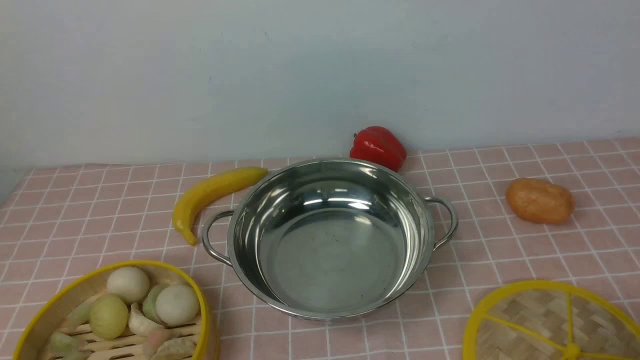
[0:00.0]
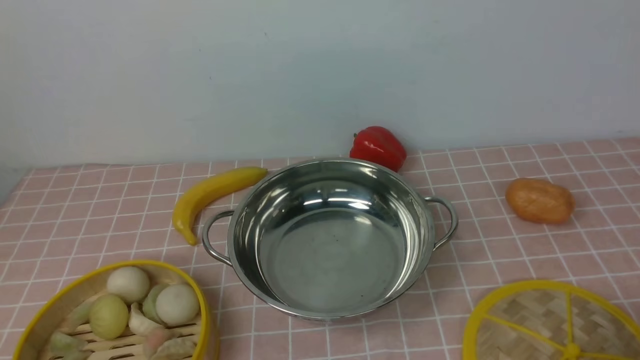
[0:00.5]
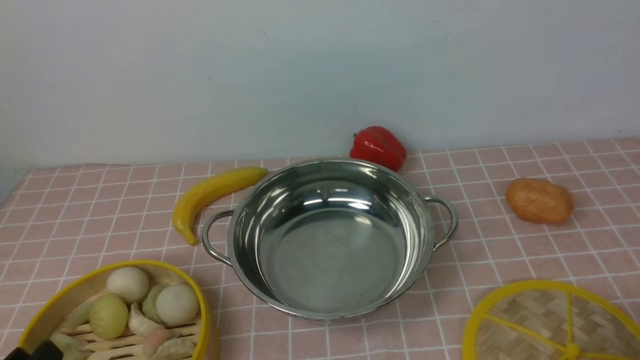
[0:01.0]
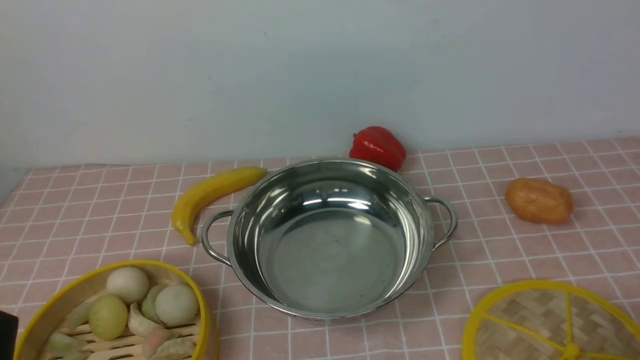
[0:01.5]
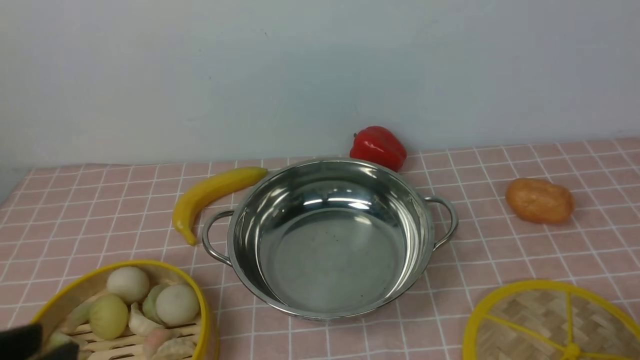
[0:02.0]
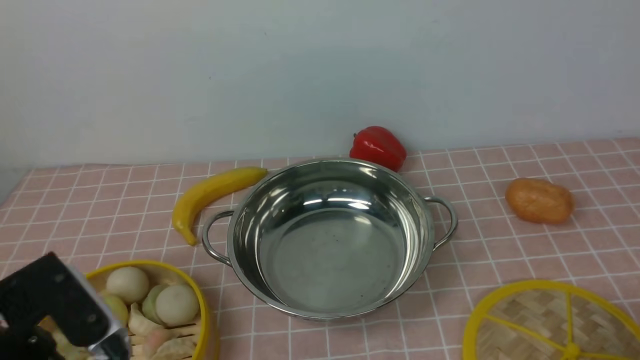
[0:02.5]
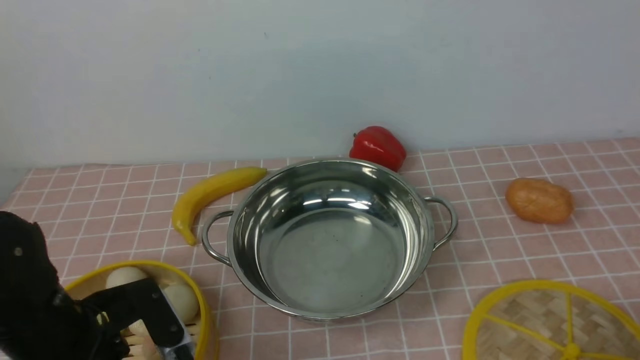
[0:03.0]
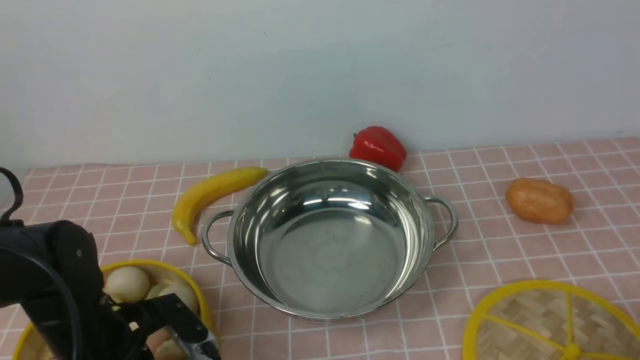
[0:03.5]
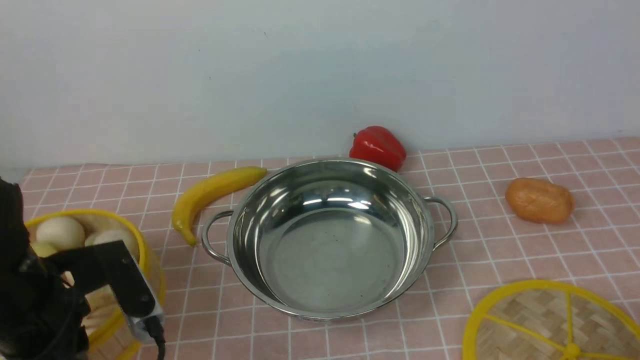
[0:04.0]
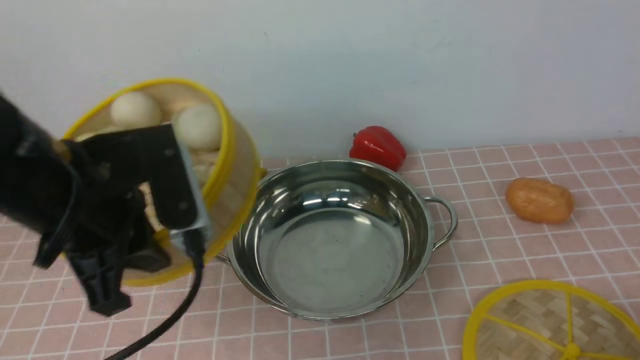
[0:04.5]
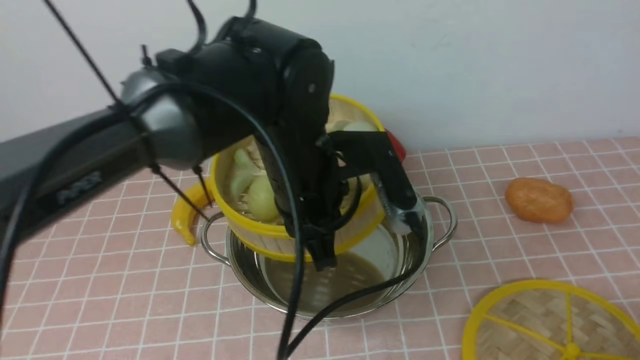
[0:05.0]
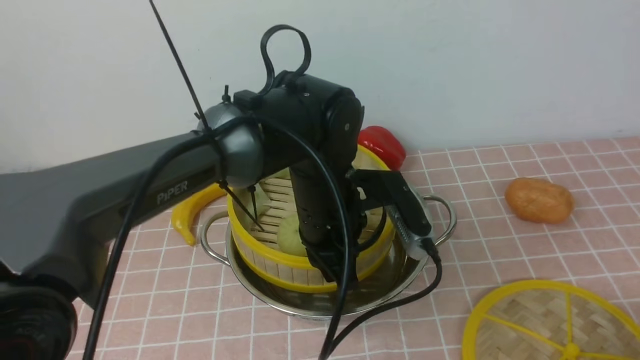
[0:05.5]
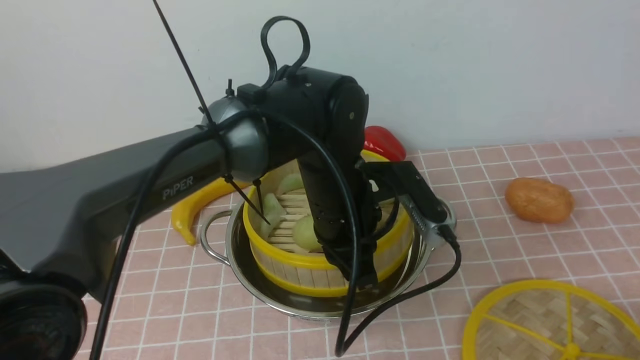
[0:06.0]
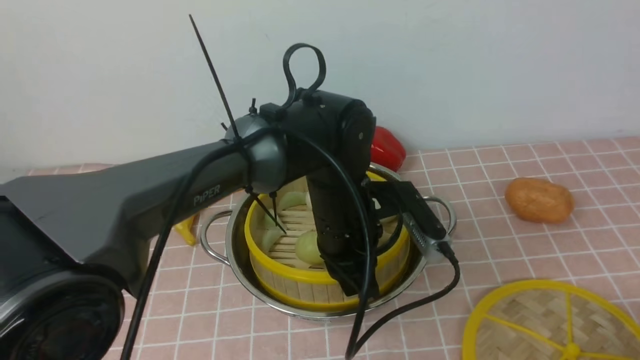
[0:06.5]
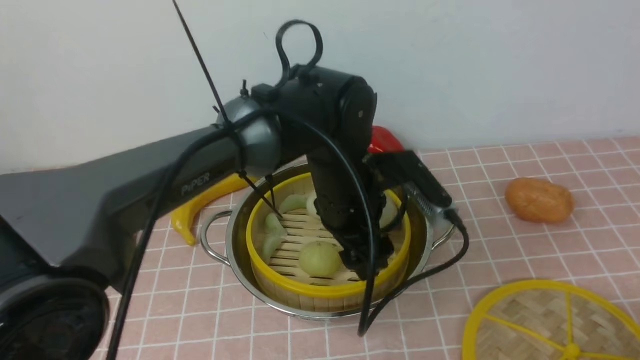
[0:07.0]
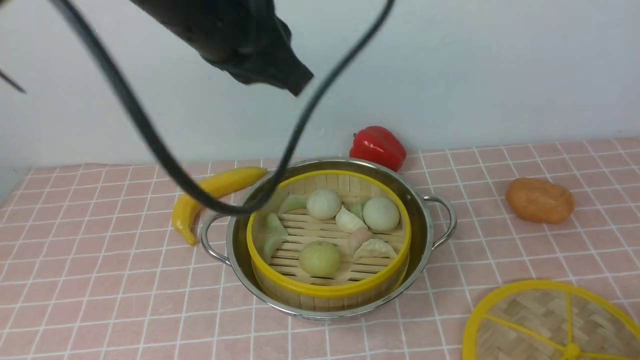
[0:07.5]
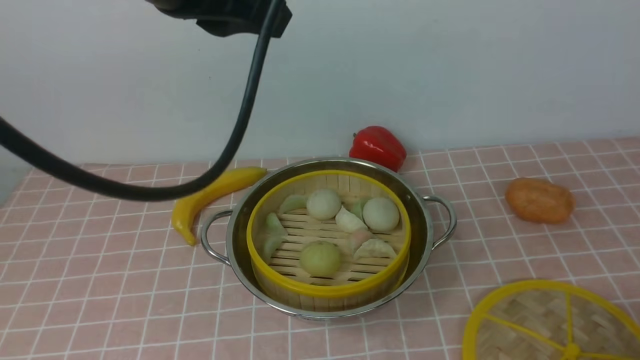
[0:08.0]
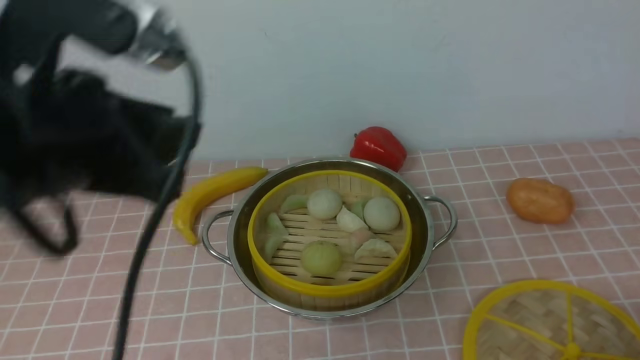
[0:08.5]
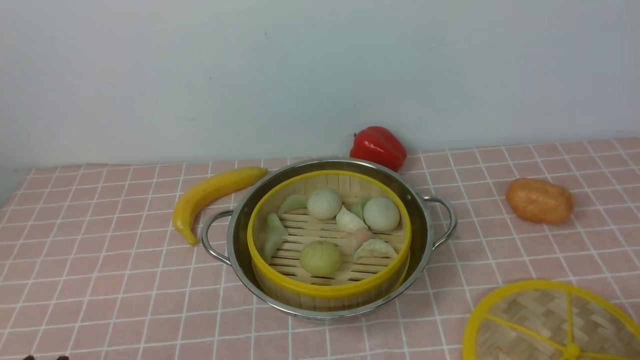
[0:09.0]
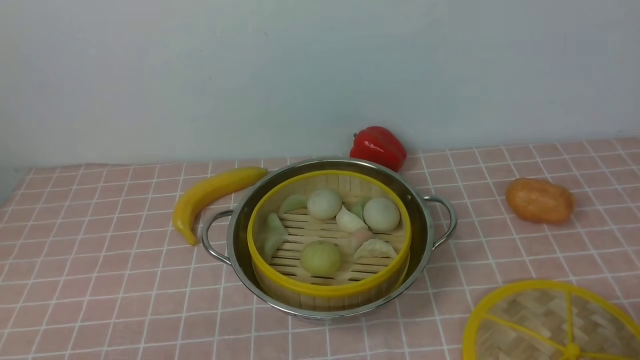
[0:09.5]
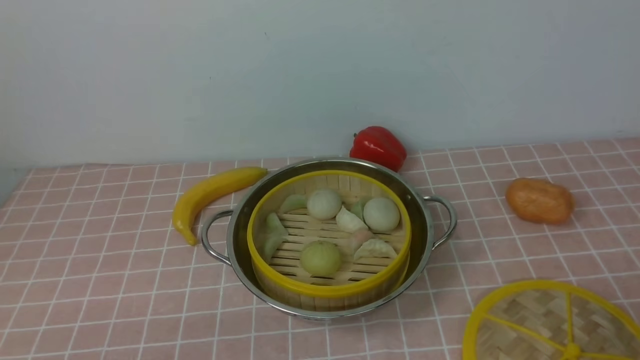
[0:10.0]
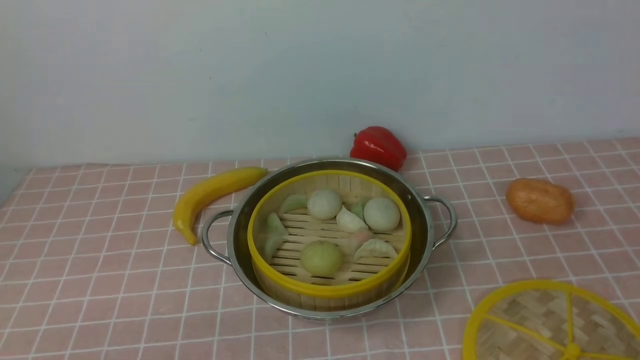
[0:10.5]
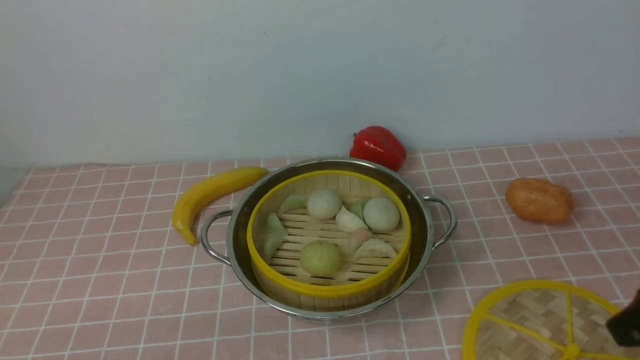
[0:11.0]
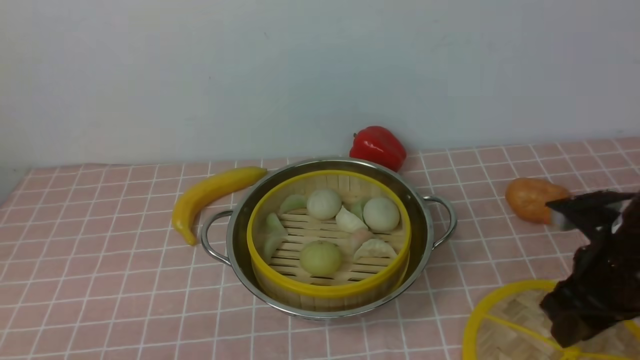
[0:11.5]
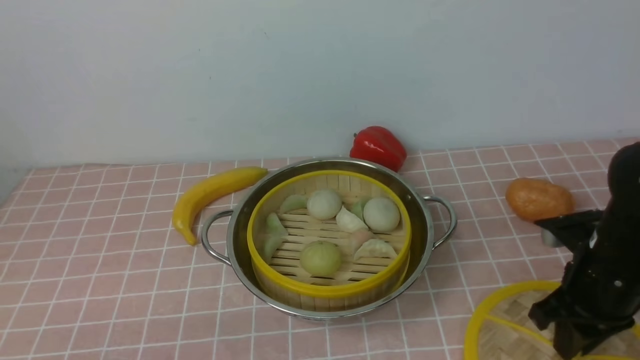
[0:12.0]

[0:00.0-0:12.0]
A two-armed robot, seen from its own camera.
Task of the whole recording: place the steamer in the pot on the pink tablecloth, and put the lid on the steamer.
Step, 0:00.0 to 0:03.5: use the left arm to lift the steamer closest to it.
Step, 0:04.0 to 0:06.5: use the left arm to put the steamer into the iron steamer pot in the middle.
0:00.0 to 0:02.0: The left gripper shifts some 15 cm upward.
0:02.0 to 0:04.0: The left gripper goes some 15 cm forward and downward, and closes.
0:04.0 to 0:06.0: The left gripper travels to the right and forward by roughly 25 cm.
0:06.0 to 0:08.0: The left gripper shifts approximately 25 cm upward and to the left, and opens, then closes again.
0:08.0 to 0:10.0: The right gripper shifts by approximately 5 cm. Meanwhile the left gripper heads downward, backward and to the left, covering approximately 40 cm.
0:10.0 to 0:12.0: The right gripper shifts roughly 20 cm forward.

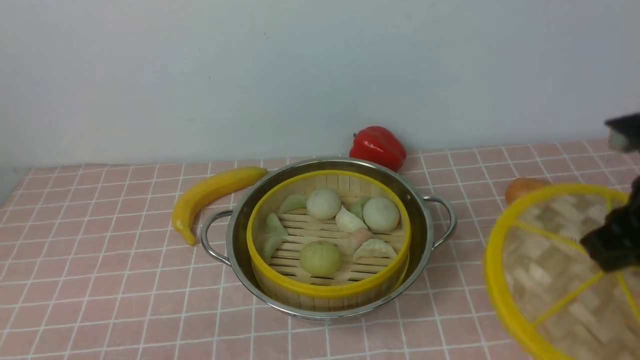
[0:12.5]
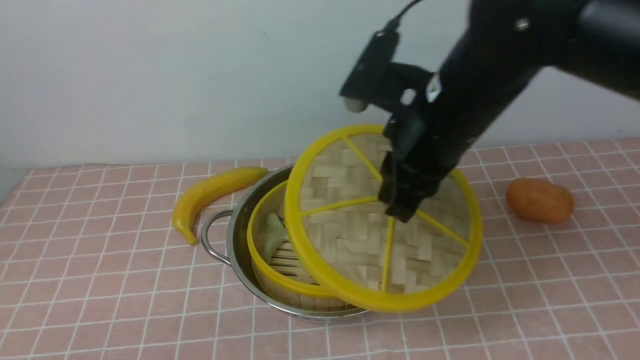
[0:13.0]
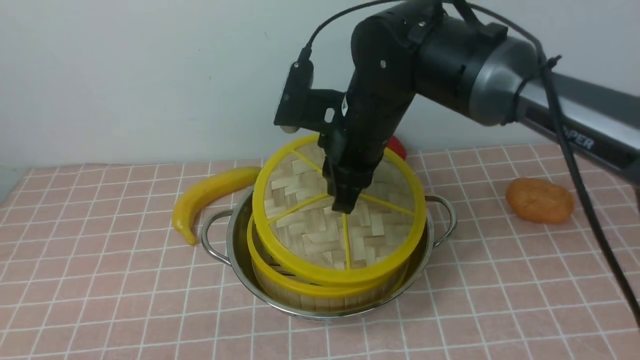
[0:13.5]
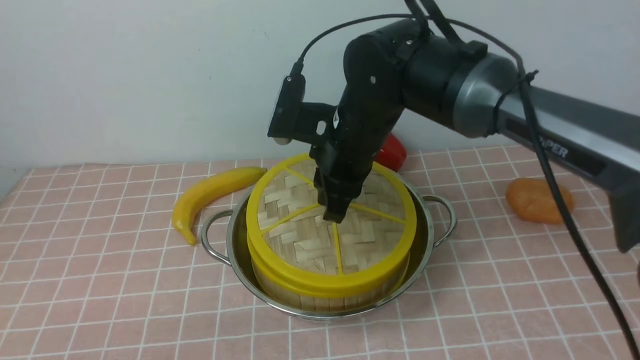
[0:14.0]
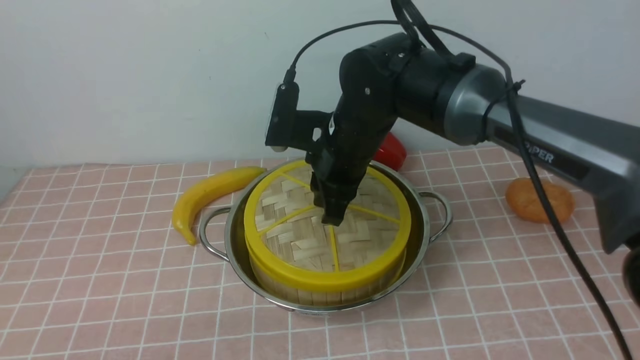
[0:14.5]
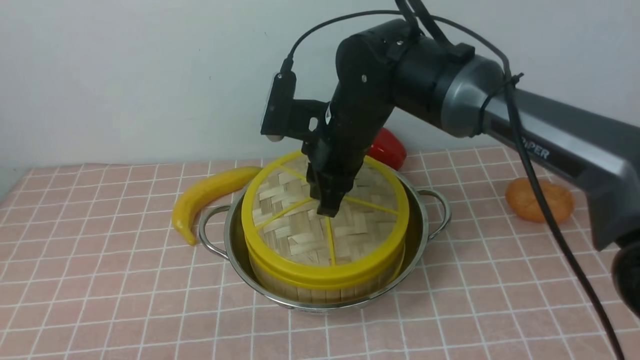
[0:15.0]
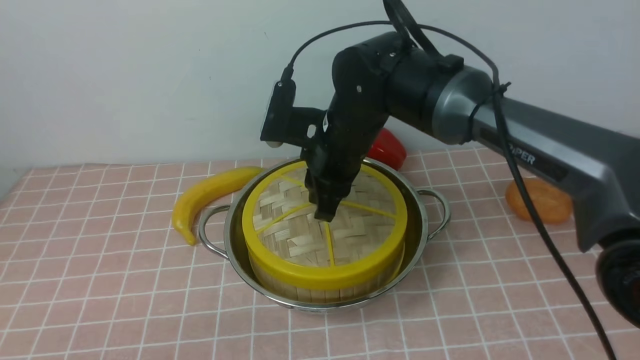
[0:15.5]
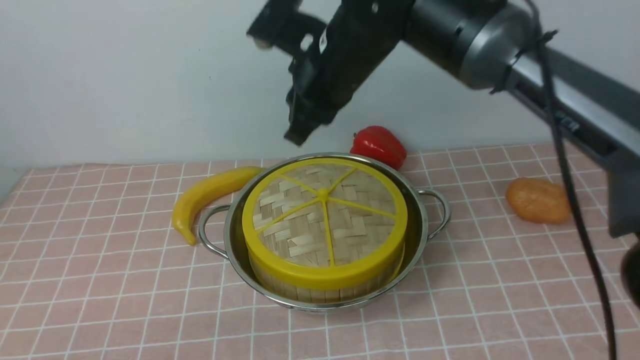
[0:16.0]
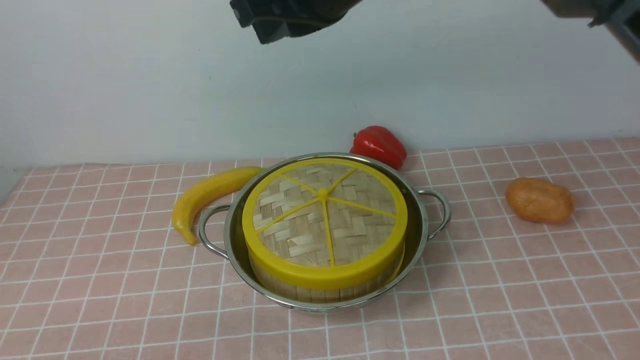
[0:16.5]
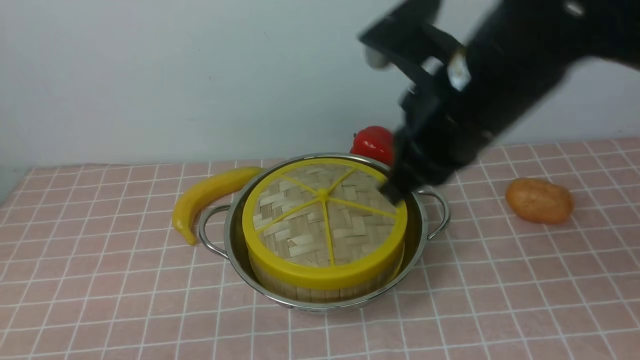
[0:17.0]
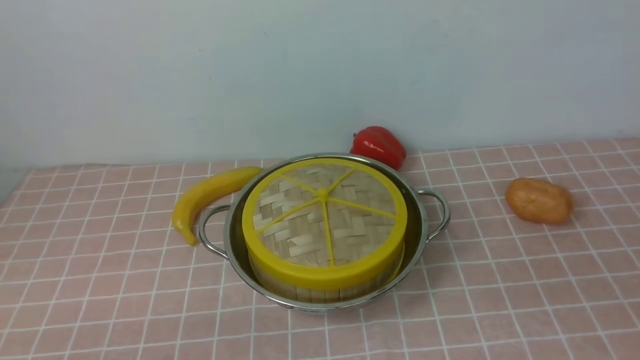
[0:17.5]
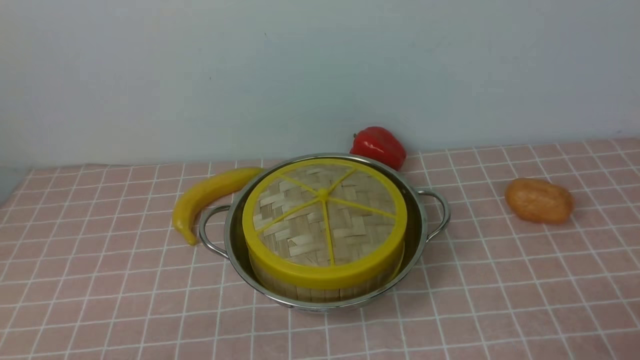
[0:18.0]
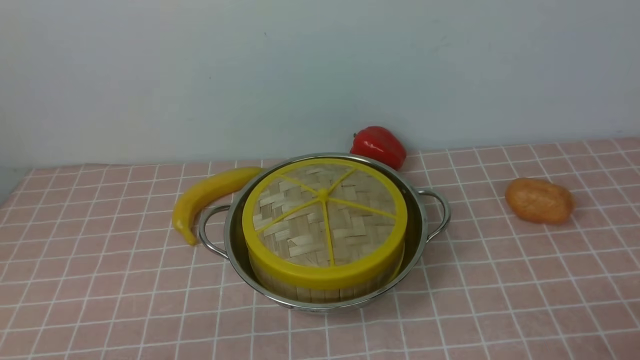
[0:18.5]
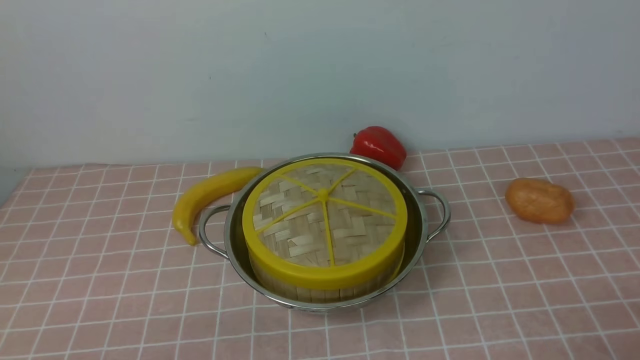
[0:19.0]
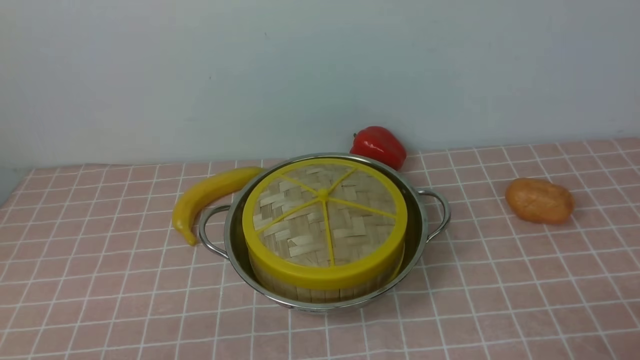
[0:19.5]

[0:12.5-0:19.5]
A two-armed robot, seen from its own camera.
Task of the whole recording: place the steamer in the pot on the pink tablecloth, and put the lid on the steamer.
Step, 0:12.5 to 0:15.5: use the right arm to place the steamer lid on the steamer.
0:12.5 to 0:14.5: The right gripper heads to the left and forward, covering about 25 cm.
0:14.5 to 0:16.0: The right gripper moves upward, approximately 10 cm.
0:16.0 to 0:17.5: The right gripper moves to the right and backward, about 40 cm.

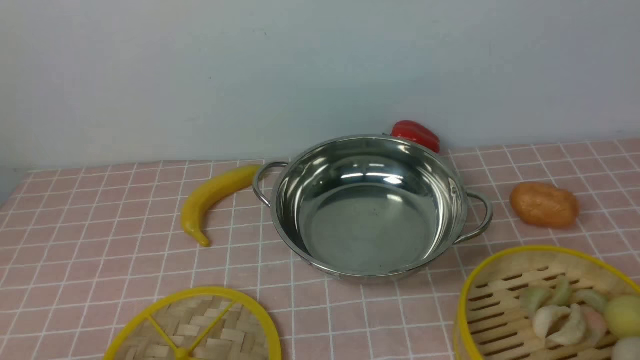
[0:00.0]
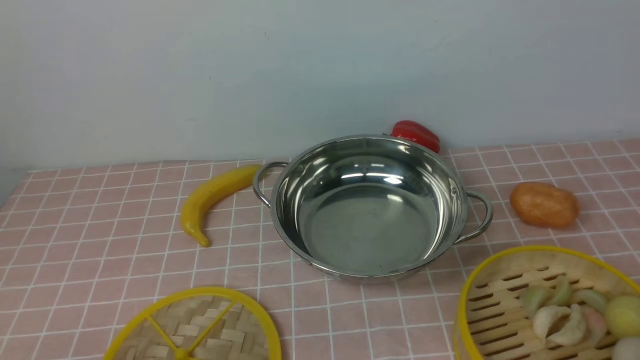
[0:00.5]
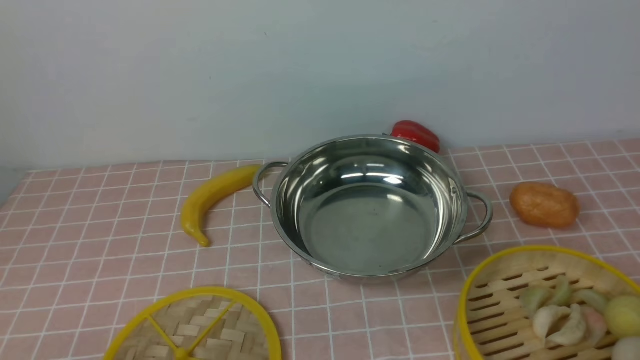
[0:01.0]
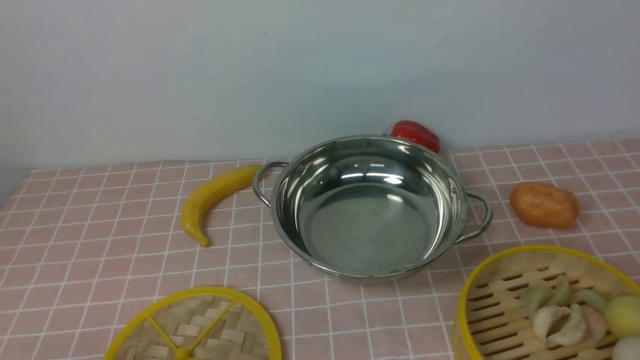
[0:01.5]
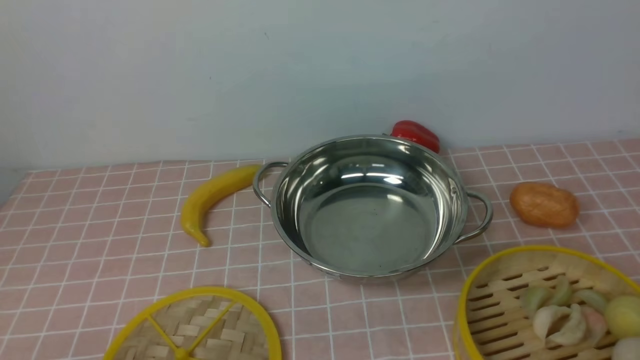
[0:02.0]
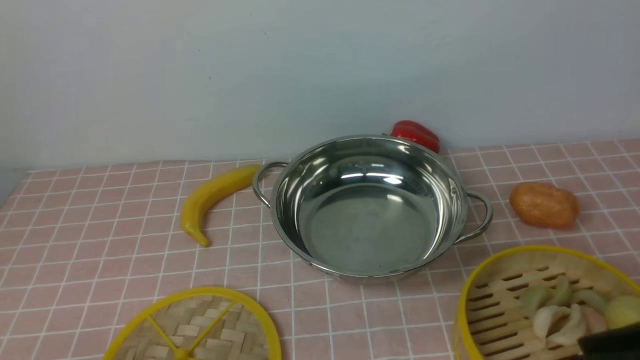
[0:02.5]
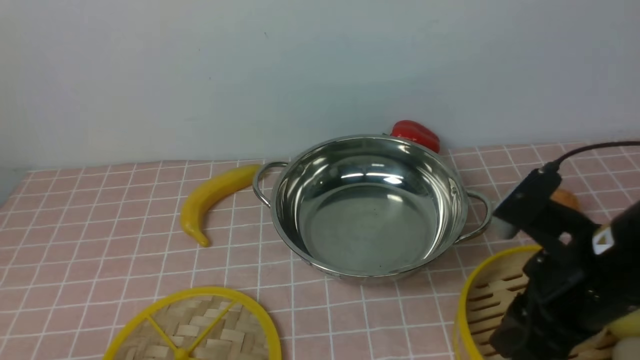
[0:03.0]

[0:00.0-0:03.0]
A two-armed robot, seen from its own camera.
Task of the whole recording: place the steamer in the pot on the pink tablecloth, and put the lid on the steamer.
0:01.5 to 0:03.0: The right gripper heads forward and to the left, covering approximately 20 cm.
